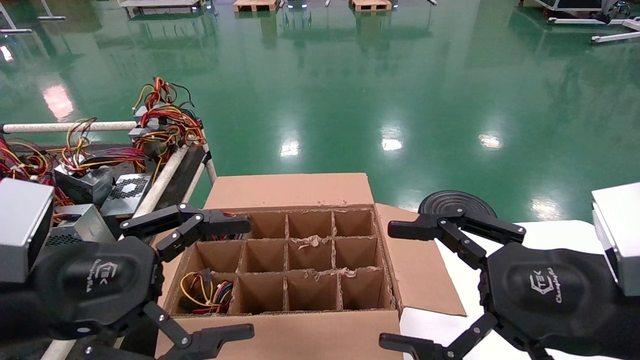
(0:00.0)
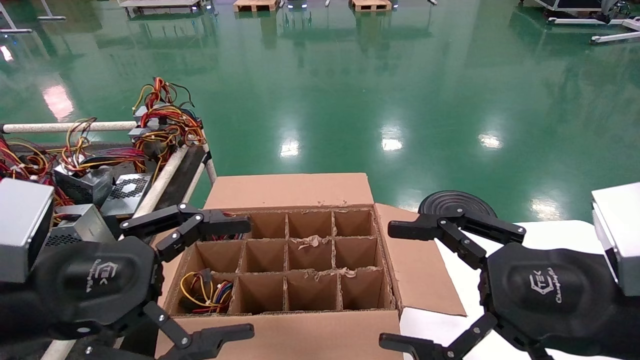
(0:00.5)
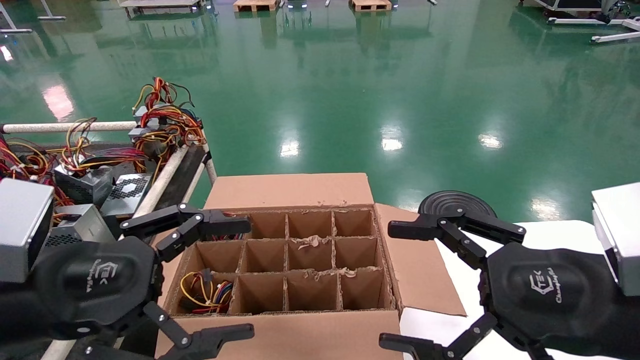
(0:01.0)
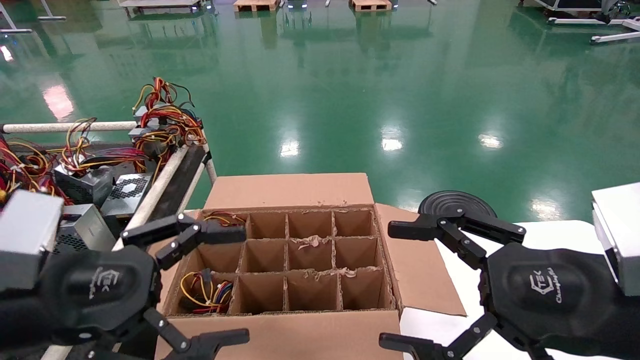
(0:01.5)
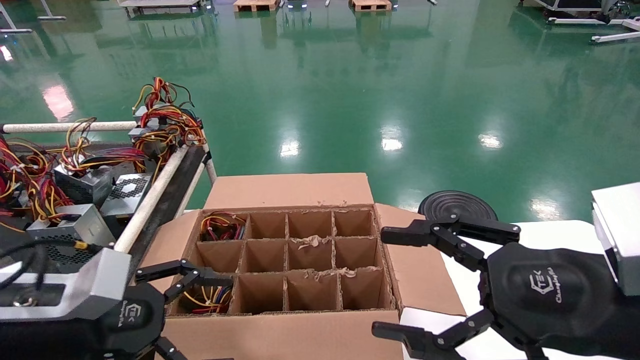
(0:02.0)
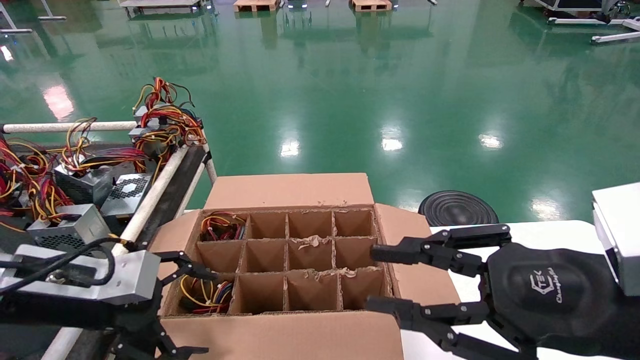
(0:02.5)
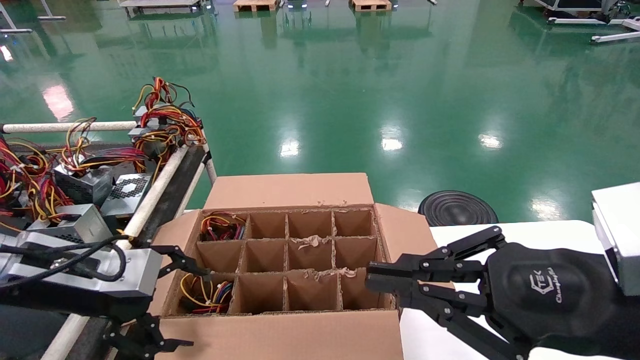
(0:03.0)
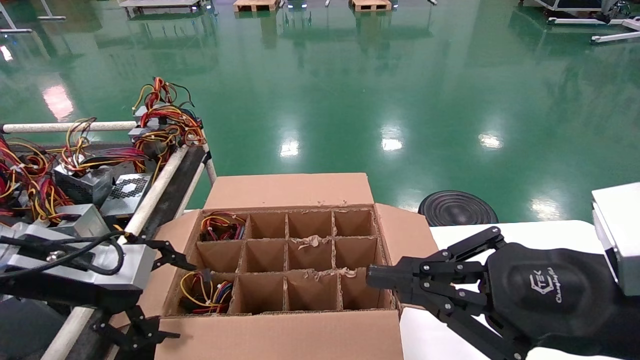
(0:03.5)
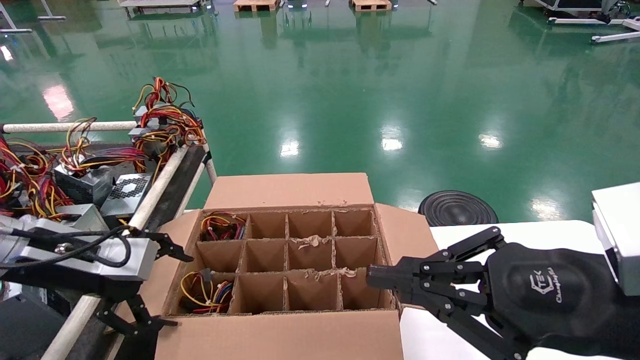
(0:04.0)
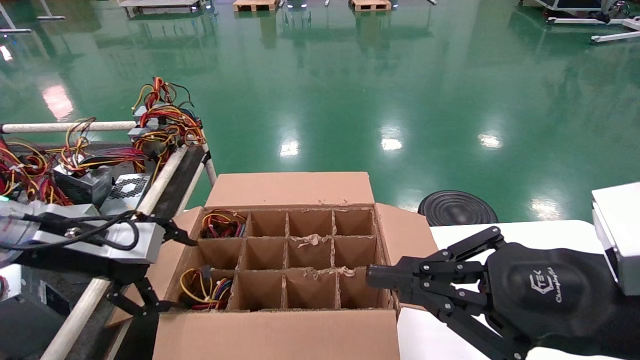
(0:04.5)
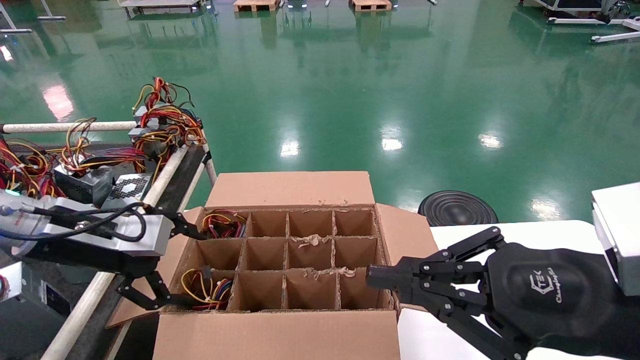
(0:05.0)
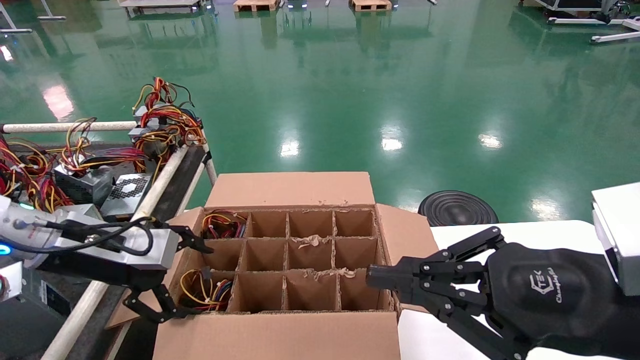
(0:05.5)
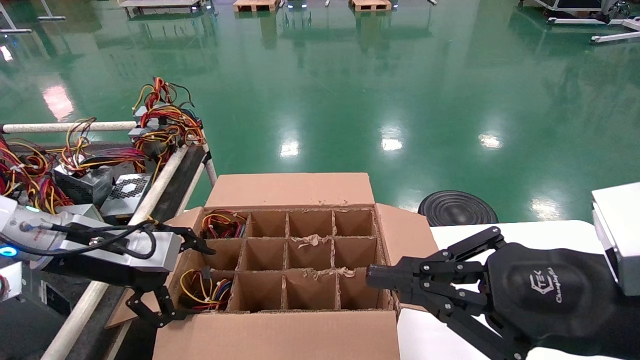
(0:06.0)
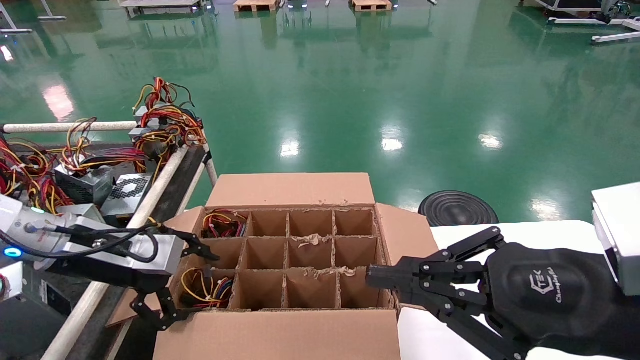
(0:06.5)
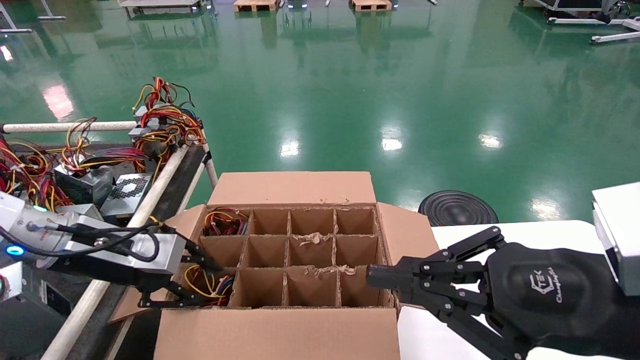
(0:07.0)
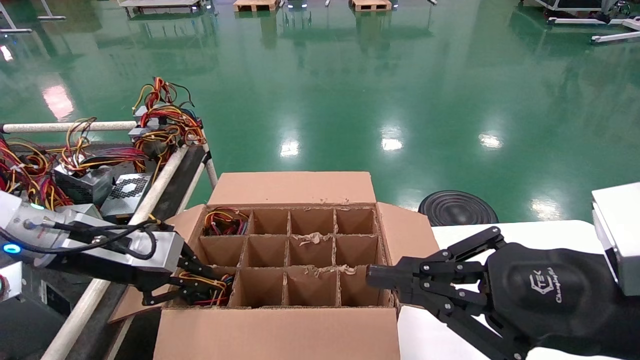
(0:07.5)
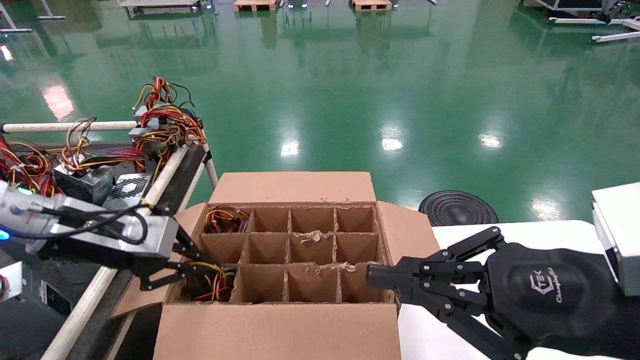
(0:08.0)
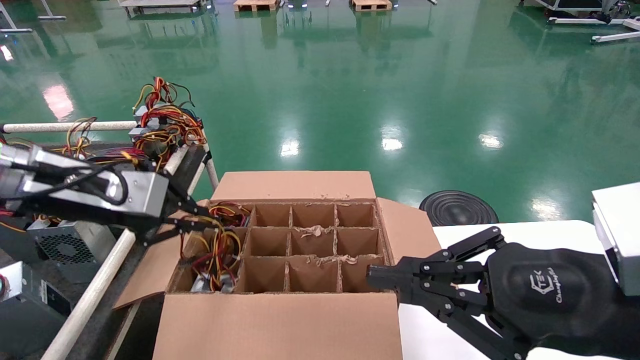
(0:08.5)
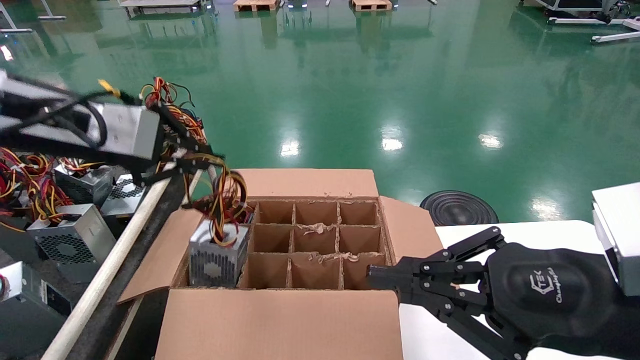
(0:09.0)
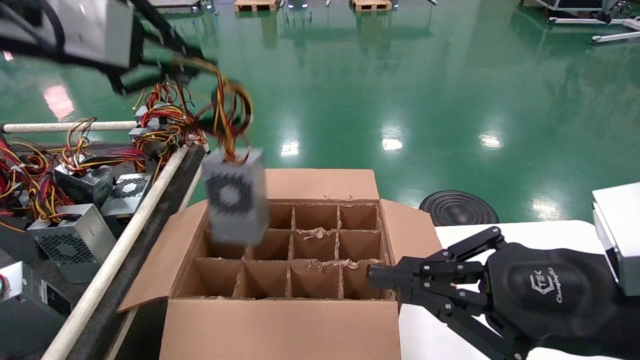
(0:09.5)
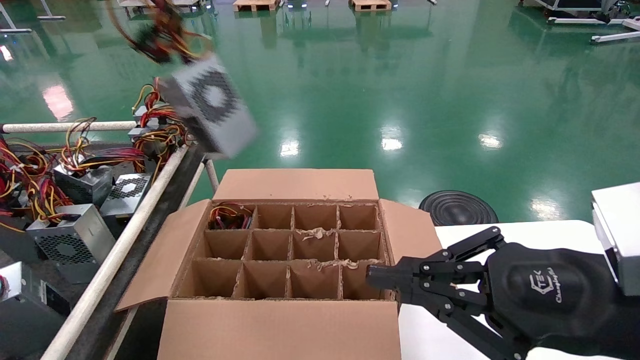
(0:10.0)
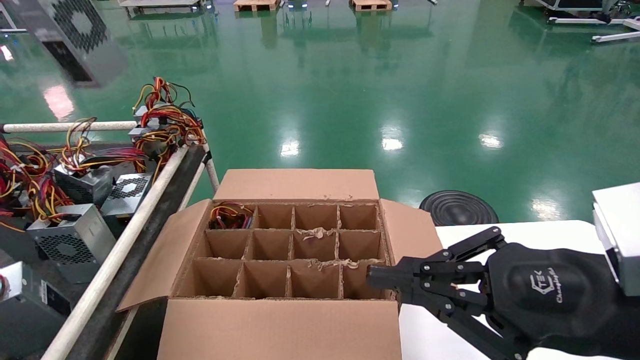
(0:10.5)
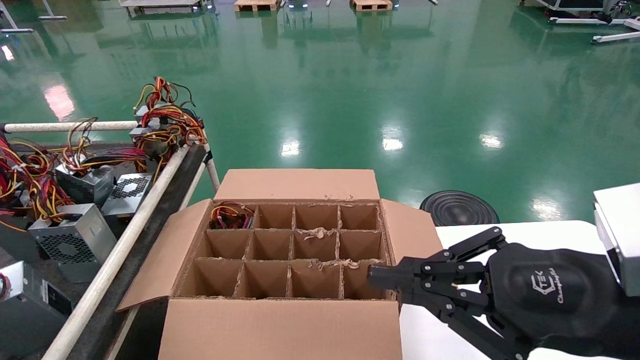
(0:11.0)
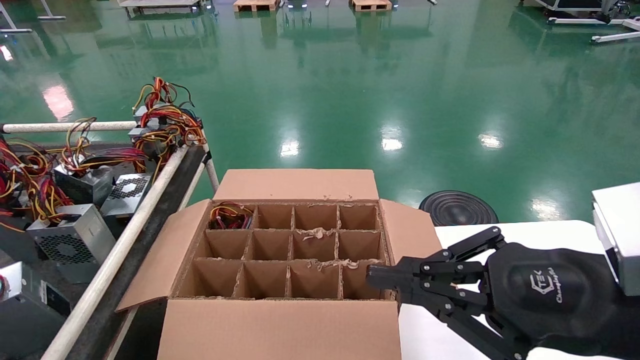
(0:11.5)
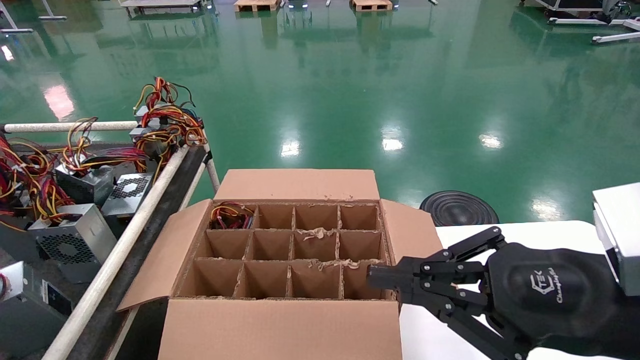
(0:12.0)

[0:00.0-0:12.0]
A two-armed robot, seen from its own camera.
Step, 0:02.0 to 0:07.0: Grab and lift the power supply from the large box.
0:00.0 to 0:02.0: The left gripper moves downward, approximately 5 cm.
0:02.0 to 0:04.0: The left gripper goes roughly 5 cm forward; the right gripper closes its fingers.
0:04.0 to 0:06.0: The grippers move only a little.
0:06.0 to 0:08.0: The left gripper closes its fingers.
0:08.0 to 0:10.0: The left gripper is displaced upward by approximately 30 cm.
0:10.0 to 0:12.0: The left gripper is displaced to the left and backward by roughly 30 cm.

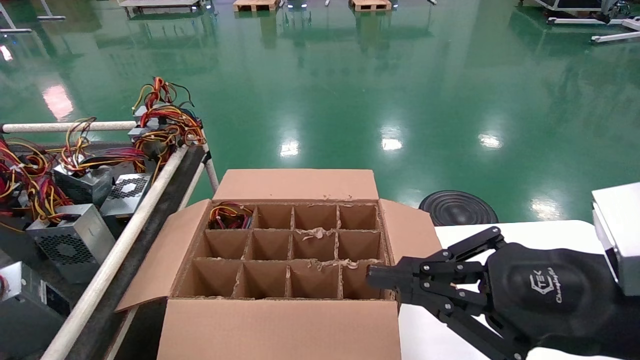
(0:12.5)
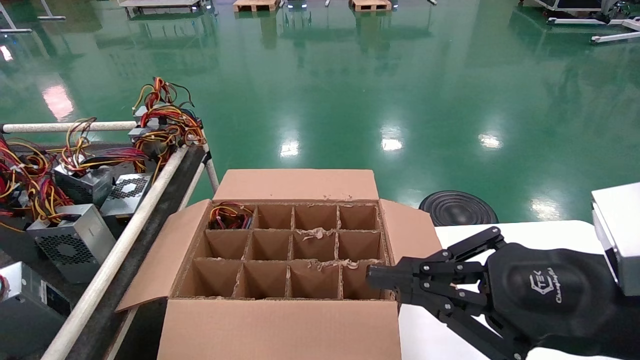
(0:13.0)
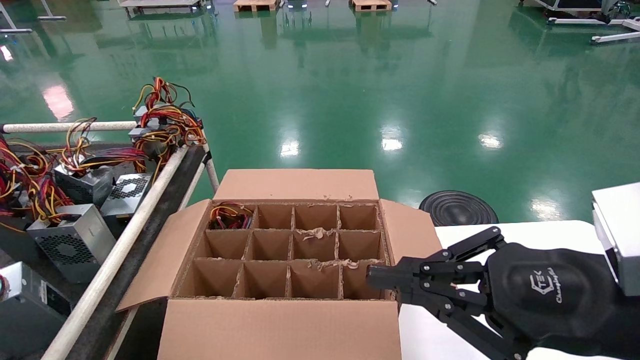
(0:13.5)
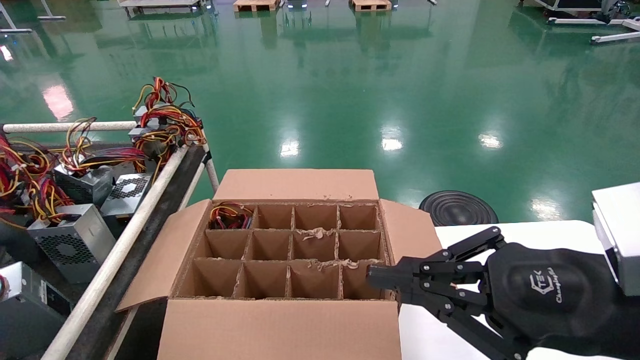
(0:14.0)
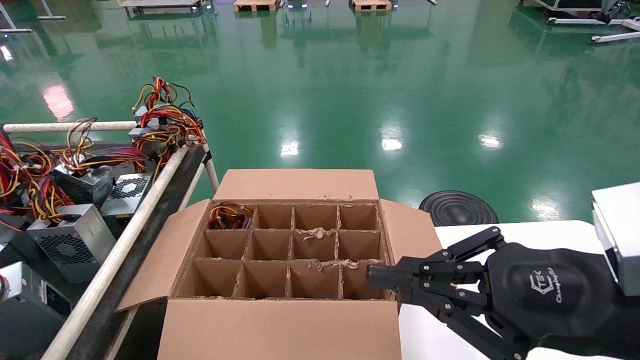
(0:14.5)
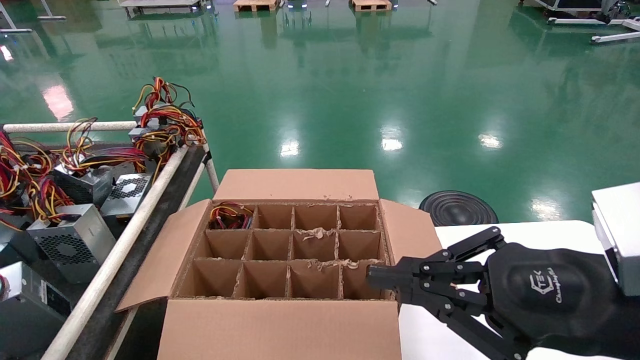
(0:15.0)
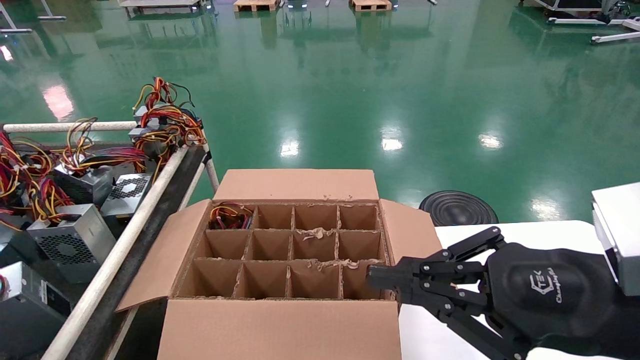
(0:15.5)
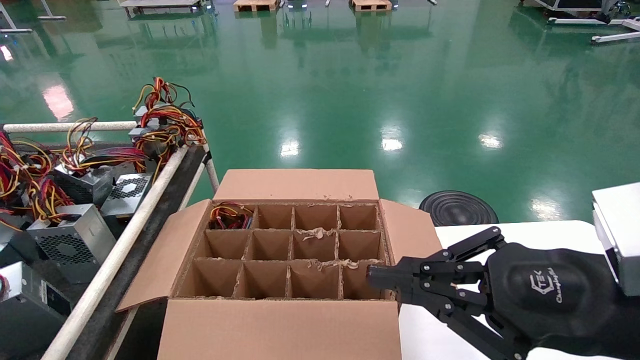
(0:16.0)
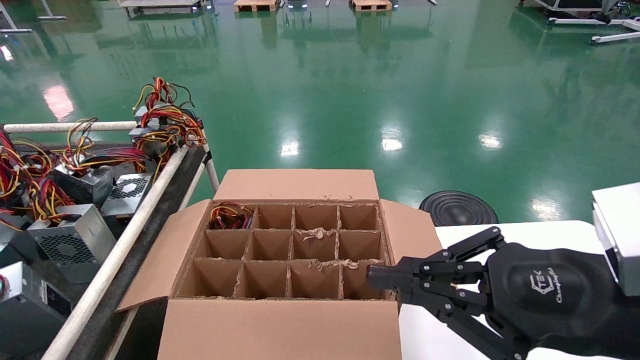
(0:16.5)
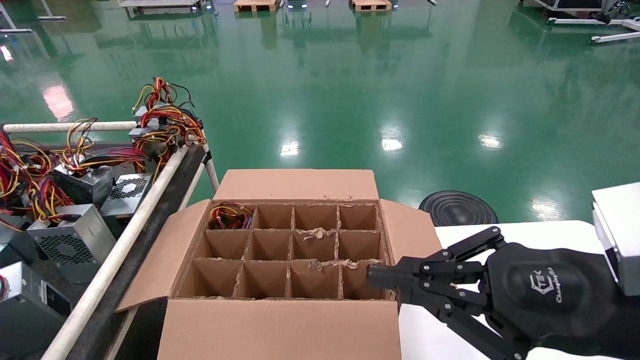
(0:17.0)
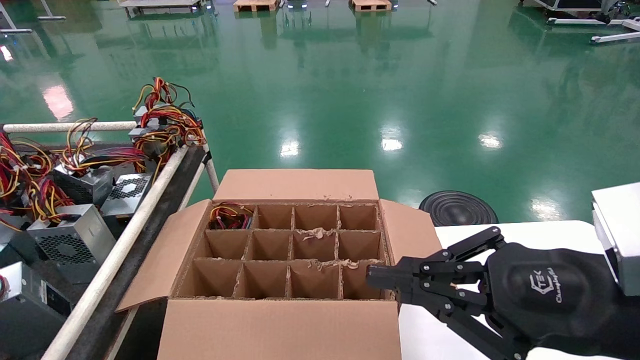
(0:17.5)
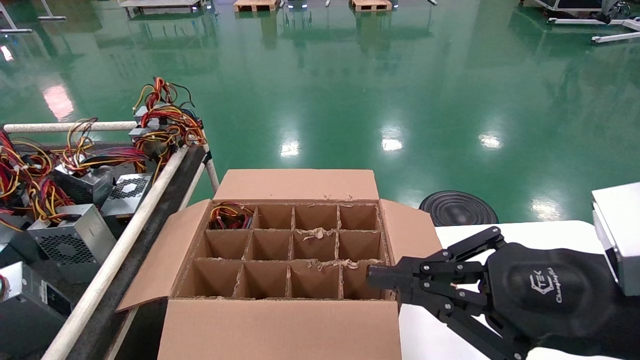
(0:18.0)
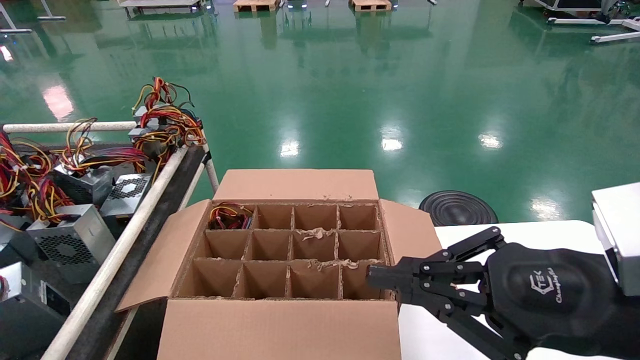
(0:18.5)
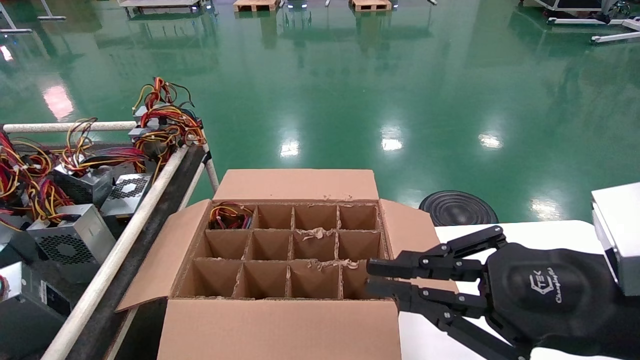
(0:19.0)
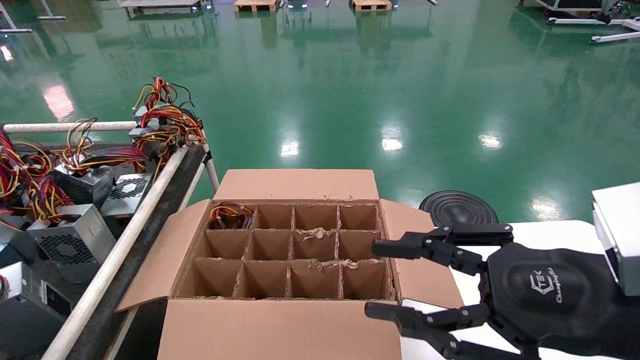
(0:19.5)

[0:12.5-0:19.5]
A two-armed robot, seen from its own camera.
0:12.5 to 0:14.5: The left gripper is displaced downward by about 10 cm.
0:17.5 to 0:19.5: The left gripper goes about 15 cm forward and to the right, and opens its fingers.
